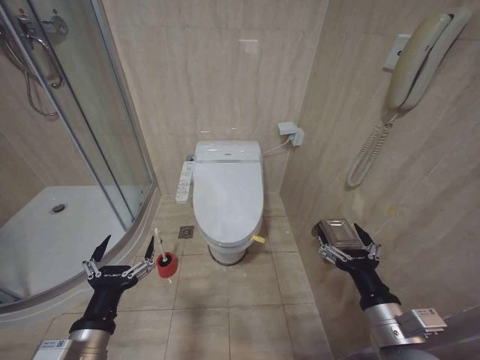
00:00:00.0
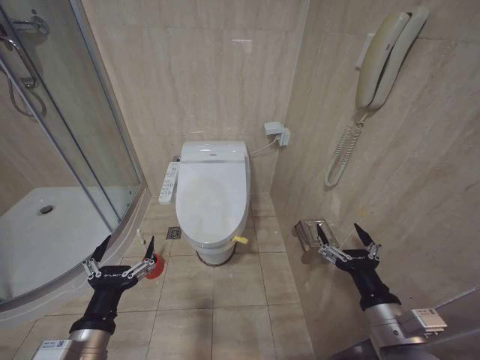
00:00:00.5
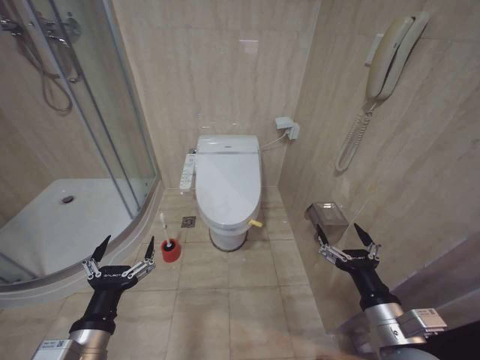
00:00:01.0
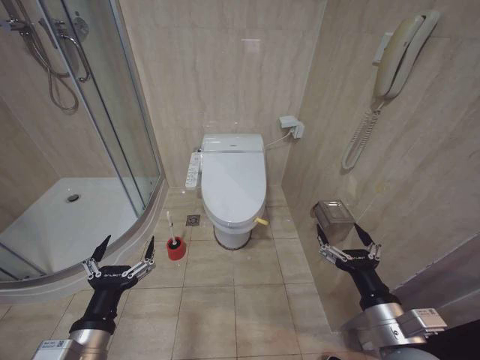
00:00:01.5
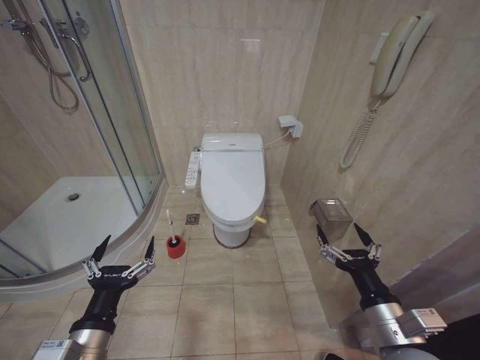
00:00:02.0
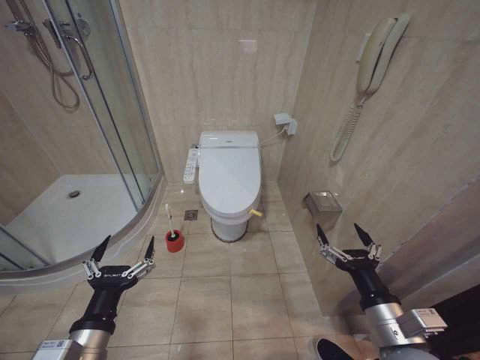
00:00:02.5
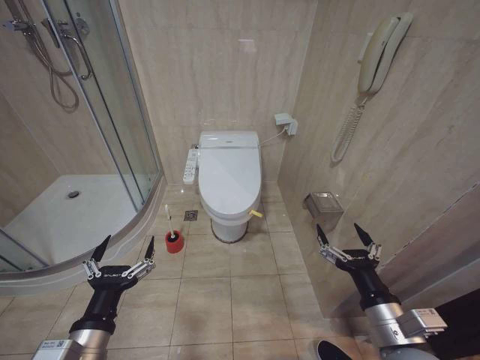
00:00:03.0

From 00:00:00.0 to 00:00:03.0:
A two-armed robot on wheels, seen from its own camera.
Task of the whole recording: Open the toilet lid, clean the toilet bowl with a toilet brush, close the toilet lid, and flush.
From 00:00:00.0 to 00:00:03.0: Both grippers stay about where they are.
